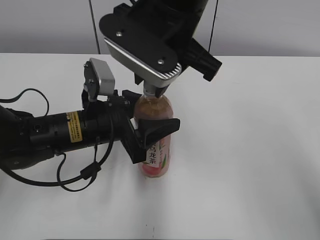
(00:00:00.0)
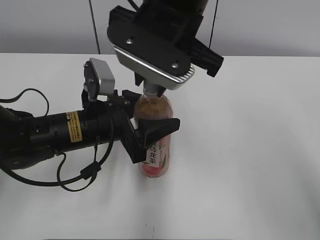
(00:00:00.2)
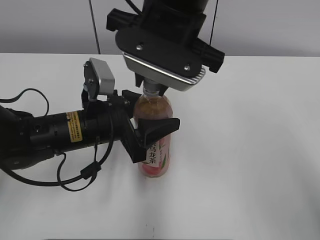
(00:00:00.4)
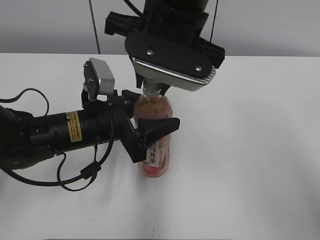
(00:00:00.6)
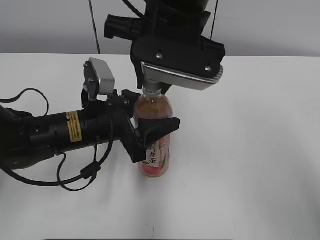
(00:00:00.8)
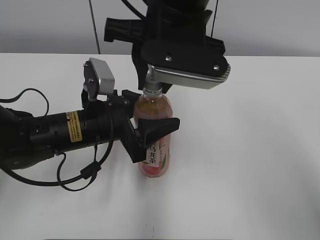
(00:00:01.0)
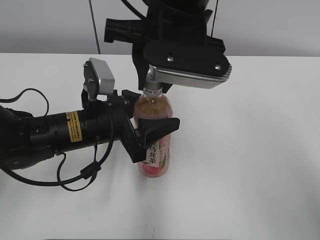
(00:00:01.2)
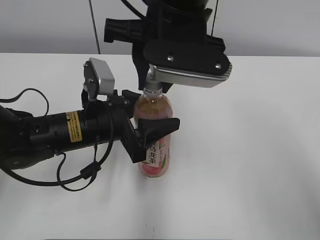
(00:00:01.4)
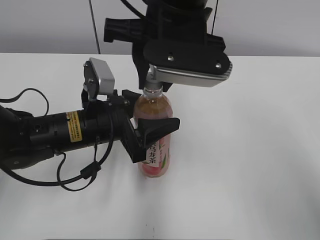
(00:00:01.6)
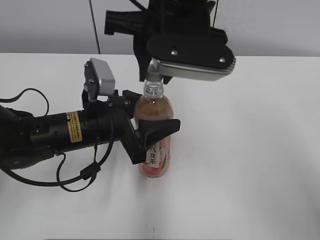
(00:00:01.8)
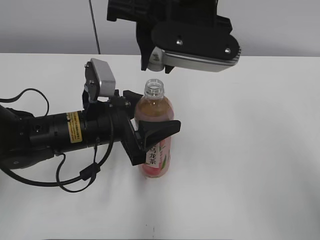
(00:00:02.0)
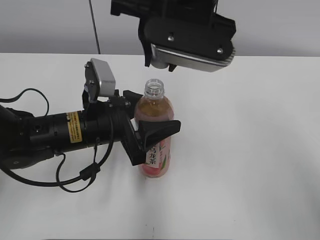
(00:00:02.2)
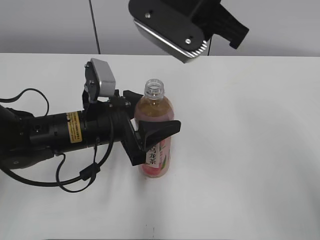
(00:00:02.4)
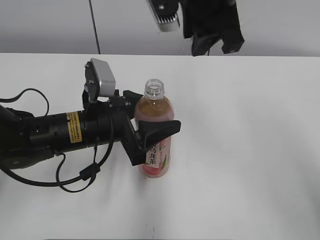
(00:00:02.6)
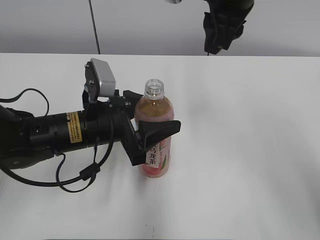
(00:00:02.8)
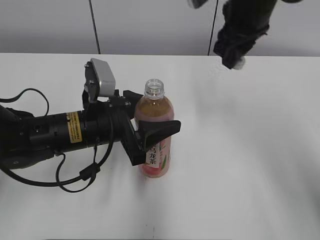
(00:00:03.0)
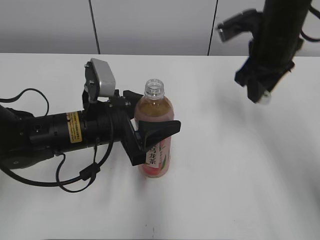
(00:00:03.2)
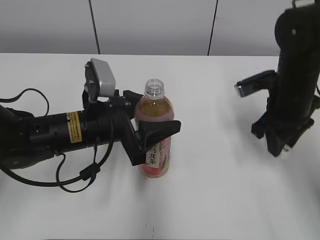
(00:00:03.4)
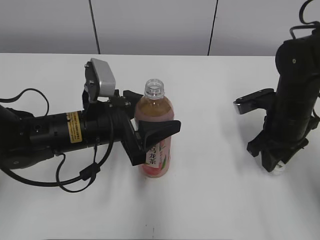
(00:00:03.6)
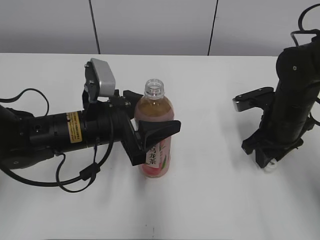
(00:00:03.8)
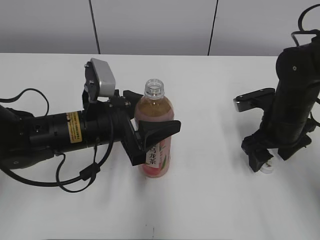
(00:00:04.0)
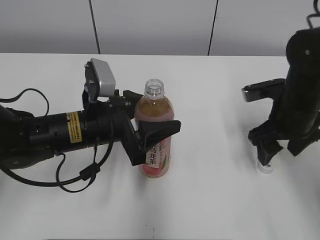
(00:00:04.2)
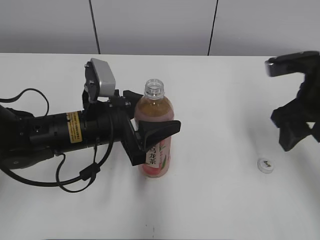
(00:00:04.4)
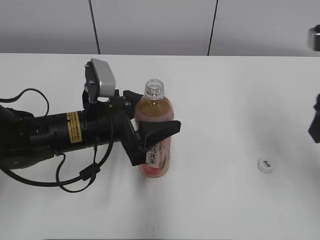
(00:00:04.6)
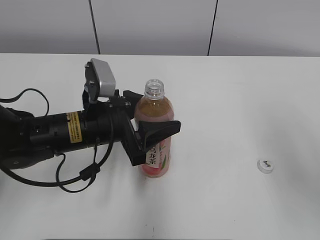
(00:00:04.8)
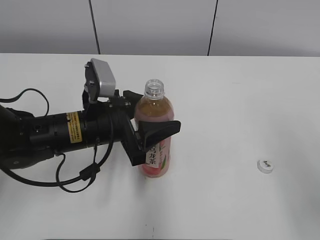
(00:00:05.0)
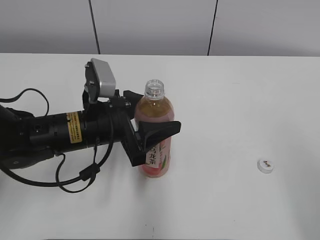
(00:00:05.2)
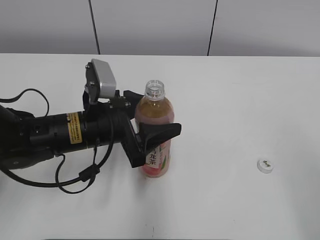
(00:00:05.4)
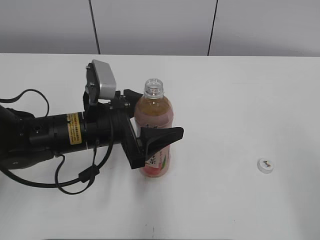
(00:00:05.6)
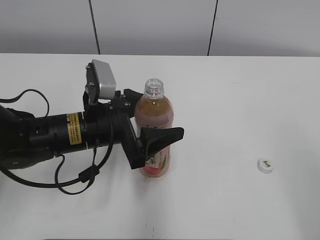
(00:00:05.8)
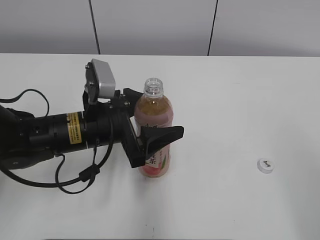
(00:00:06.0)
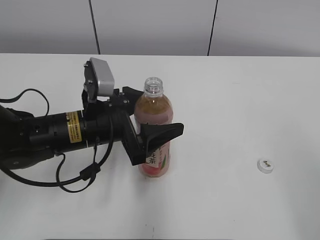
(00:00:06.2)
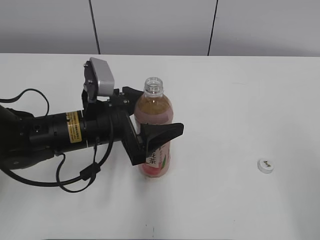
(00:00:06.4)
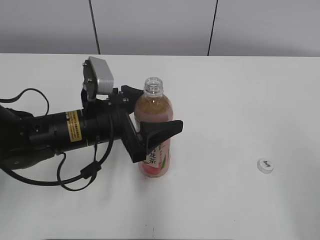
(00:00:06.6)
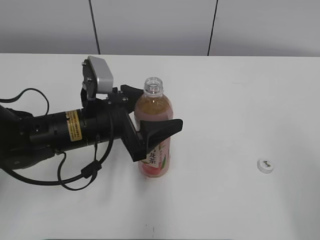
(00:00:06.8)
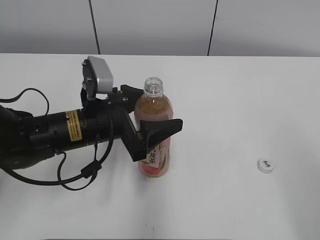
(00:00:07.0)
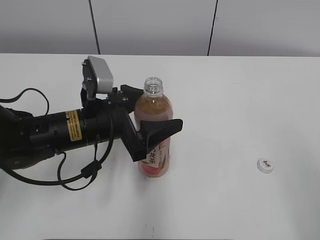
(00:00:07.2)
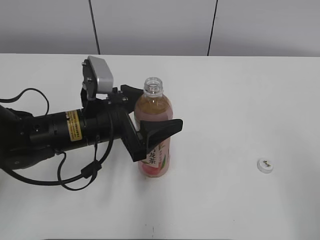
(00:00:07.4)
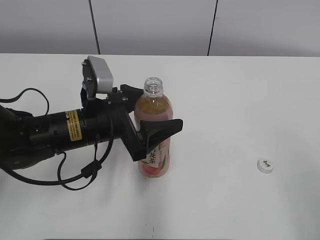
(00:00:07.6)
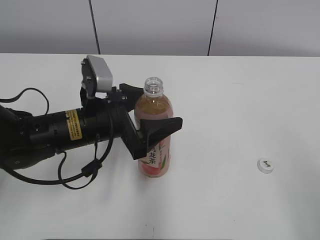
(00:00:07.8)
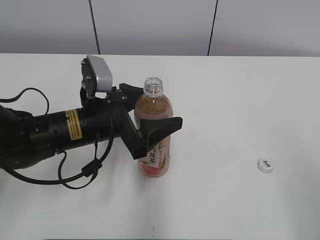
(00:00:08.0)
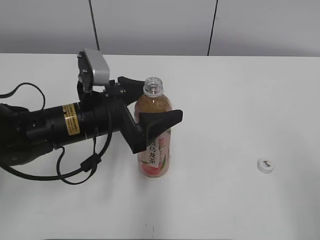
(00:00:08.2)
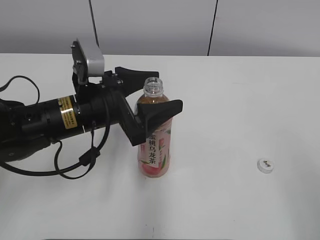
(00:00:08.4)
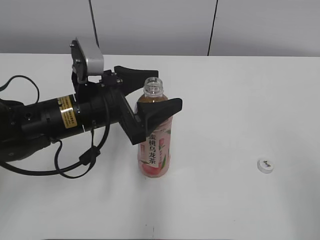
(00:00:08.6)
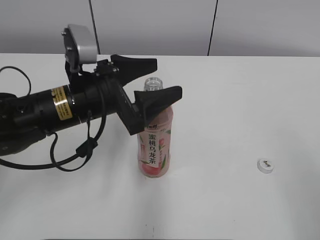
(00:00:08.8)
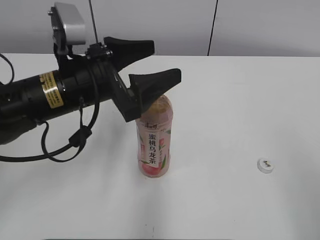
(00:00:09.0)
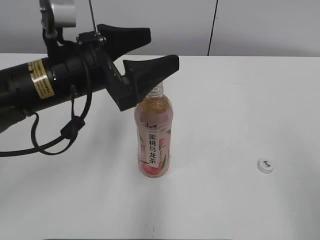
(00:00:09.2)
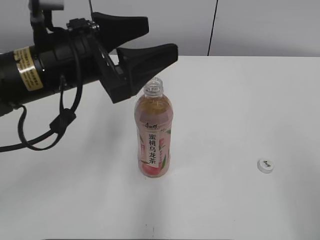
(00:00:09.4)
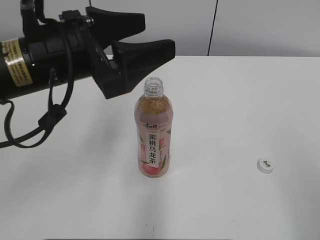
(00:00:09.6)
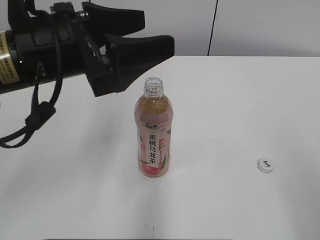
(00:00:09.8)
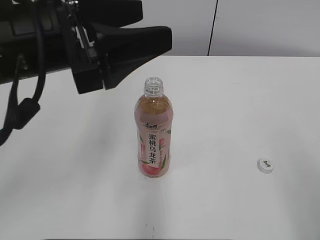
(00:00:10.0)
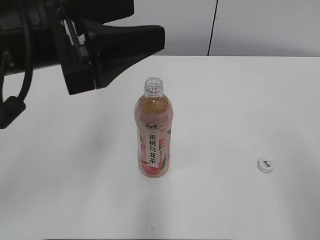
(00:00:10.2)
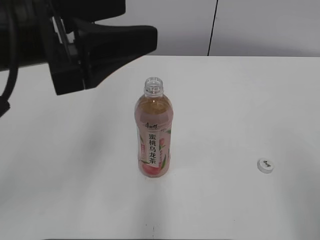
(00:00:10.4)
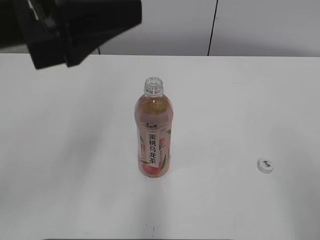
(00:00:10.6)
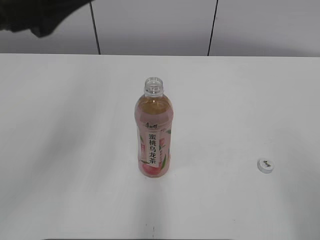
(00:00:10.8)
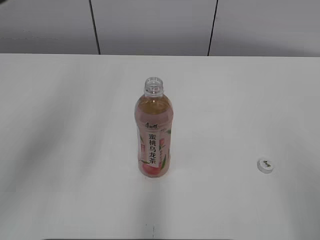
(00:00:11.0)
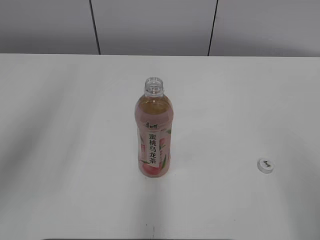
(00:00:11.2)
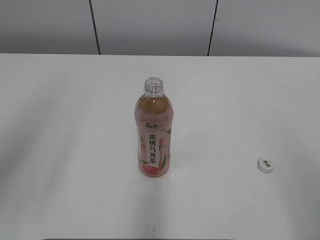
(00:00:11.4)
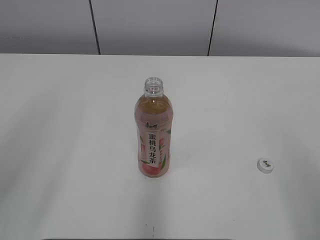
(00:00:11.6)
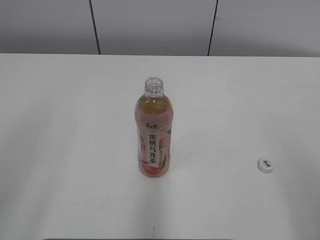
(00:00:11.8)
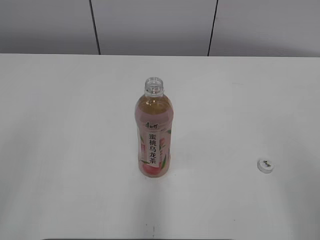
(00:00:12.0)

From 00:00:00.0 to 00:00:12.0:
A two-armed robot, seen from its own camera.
Step, from 00:00:01.8 to 00:00:03.8: Place the bottle cap on the table with the right gripper.
From 00:00:01.6 to 00:00:03.0: The right gripper travels to the right and forward by approximately 15 cm.
From 00:00:03.0 to 00:00:04.4: The right gripper goes some 15 cm to the right, backward and downward, and opens up.
From 00:00:04.4 to 00:00:06.0: The left gripper opens its fingers. Meanwhile the right gripper travels backward by approximately 25 cm.
From 00:00:06.0 to 00:00:07.6: The grippers move only a little.
From 00:00:07.6 to 00:00:09.0: The left gripper shifts some 5 cm upward.
From 00:00:09.0 to 00:00:10.4: The left gripper is displaced upward and backward by some 10 cm.
From 00:00:10.4 to 00:00:12.0: The left gripper moves backward and to the left, approximately 20 cm.
